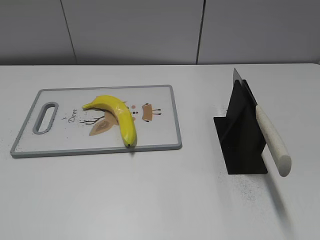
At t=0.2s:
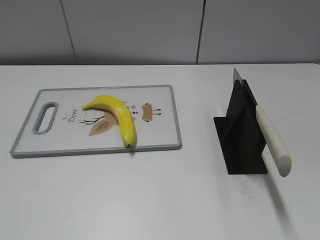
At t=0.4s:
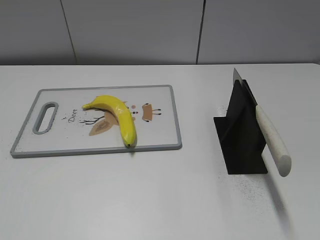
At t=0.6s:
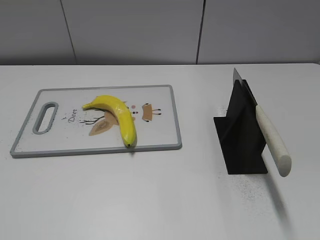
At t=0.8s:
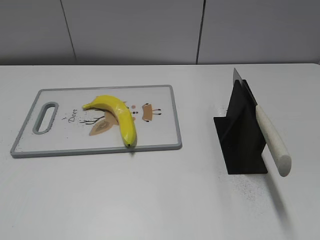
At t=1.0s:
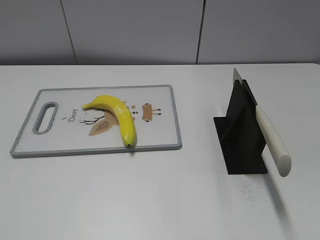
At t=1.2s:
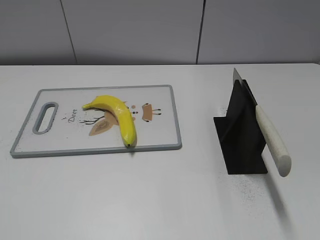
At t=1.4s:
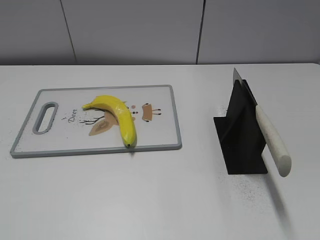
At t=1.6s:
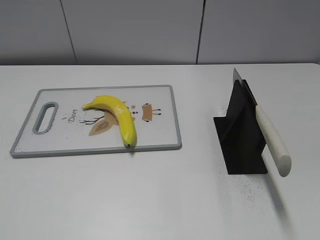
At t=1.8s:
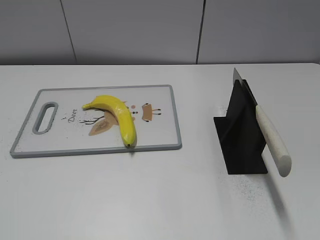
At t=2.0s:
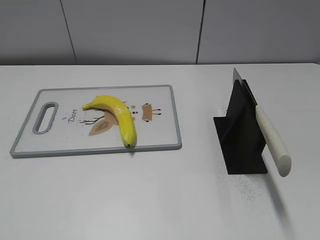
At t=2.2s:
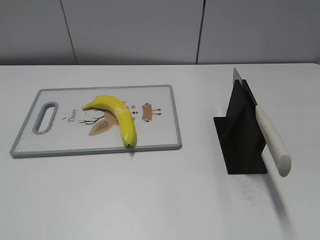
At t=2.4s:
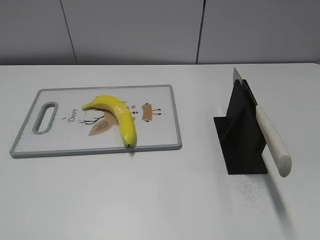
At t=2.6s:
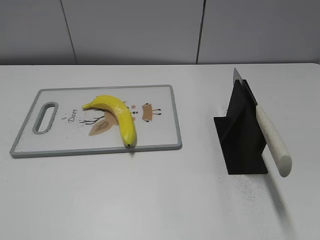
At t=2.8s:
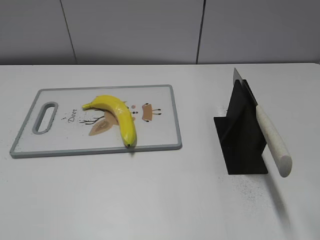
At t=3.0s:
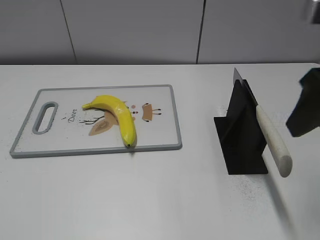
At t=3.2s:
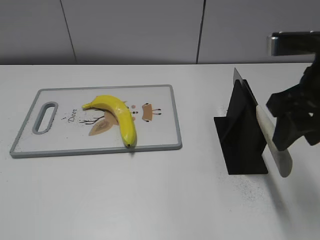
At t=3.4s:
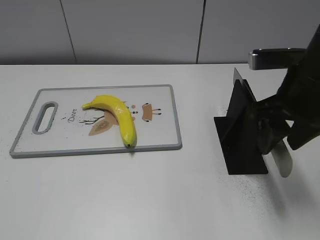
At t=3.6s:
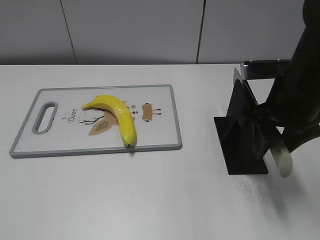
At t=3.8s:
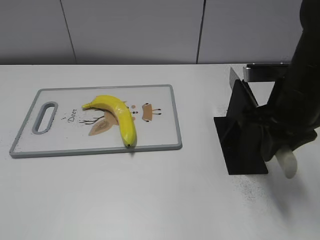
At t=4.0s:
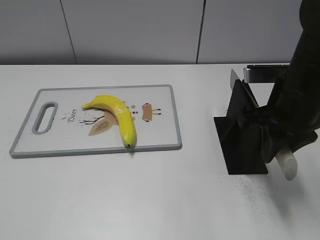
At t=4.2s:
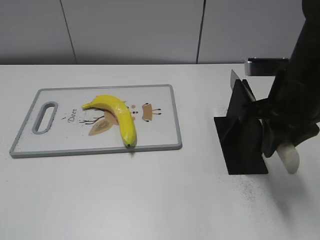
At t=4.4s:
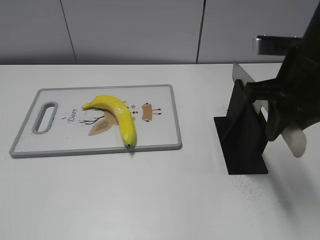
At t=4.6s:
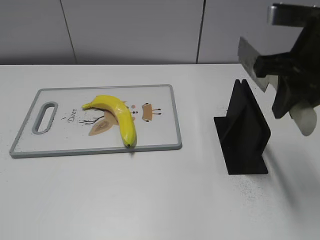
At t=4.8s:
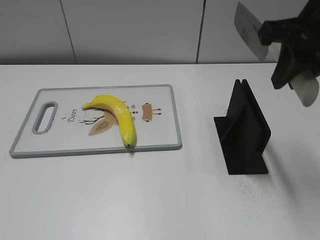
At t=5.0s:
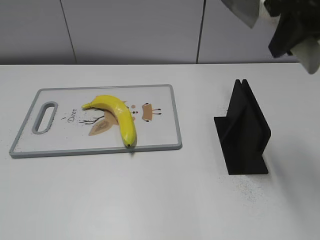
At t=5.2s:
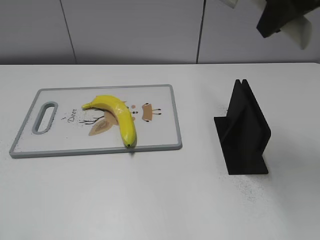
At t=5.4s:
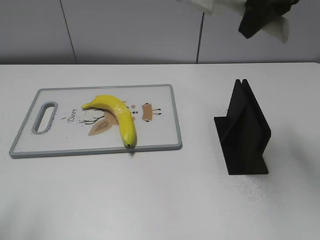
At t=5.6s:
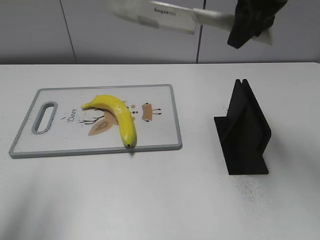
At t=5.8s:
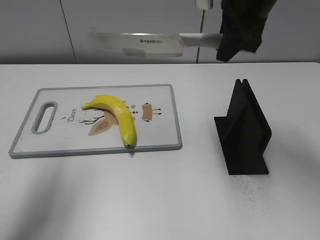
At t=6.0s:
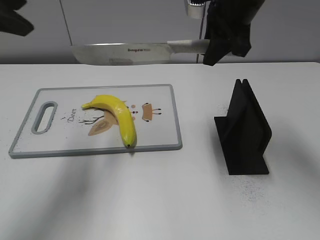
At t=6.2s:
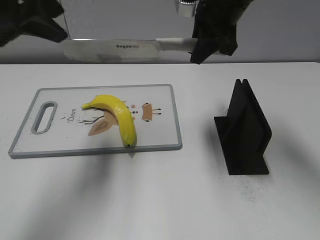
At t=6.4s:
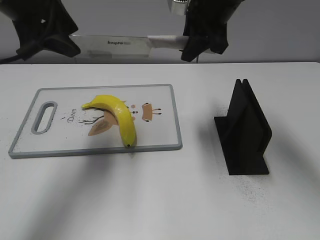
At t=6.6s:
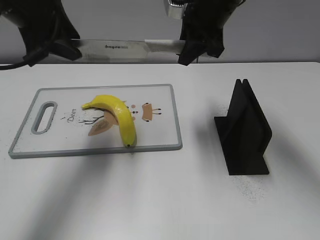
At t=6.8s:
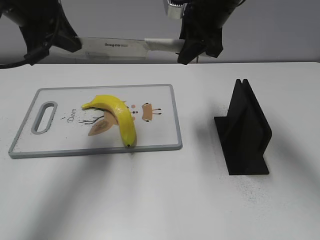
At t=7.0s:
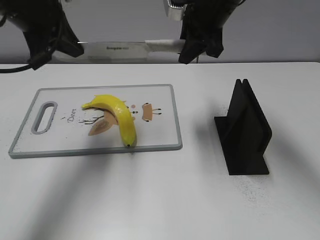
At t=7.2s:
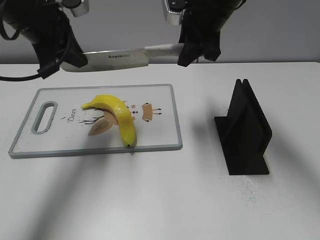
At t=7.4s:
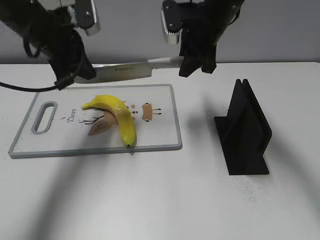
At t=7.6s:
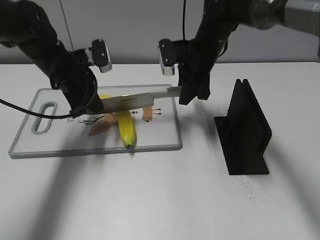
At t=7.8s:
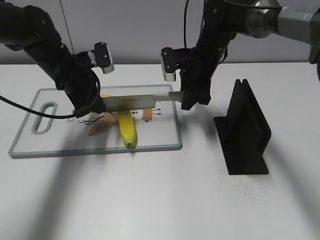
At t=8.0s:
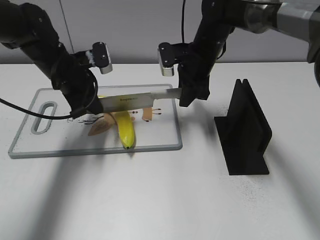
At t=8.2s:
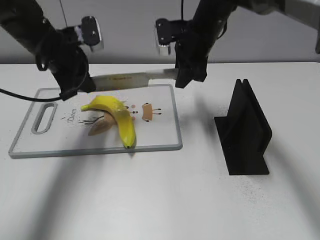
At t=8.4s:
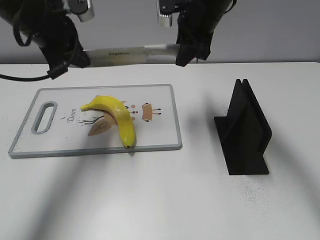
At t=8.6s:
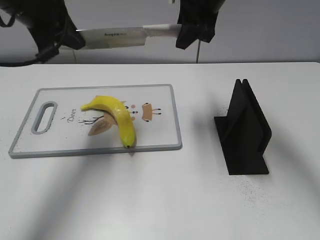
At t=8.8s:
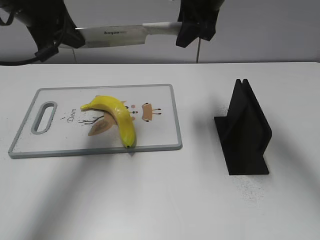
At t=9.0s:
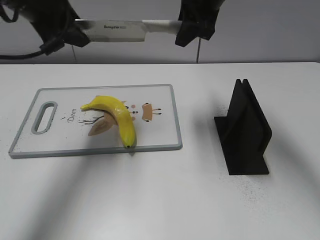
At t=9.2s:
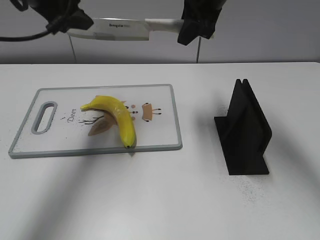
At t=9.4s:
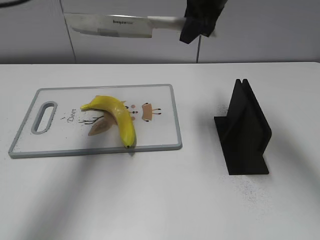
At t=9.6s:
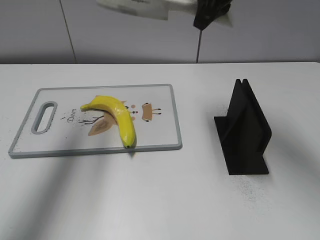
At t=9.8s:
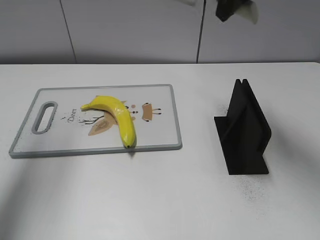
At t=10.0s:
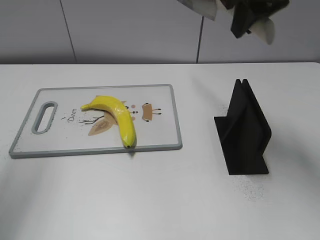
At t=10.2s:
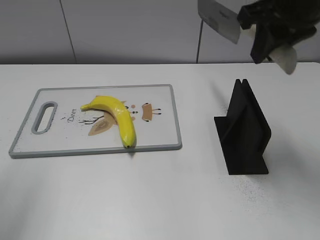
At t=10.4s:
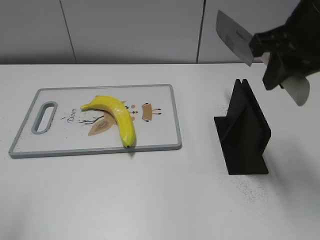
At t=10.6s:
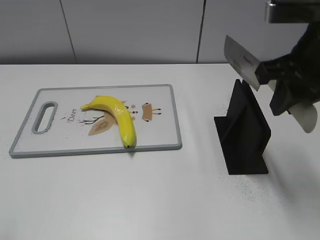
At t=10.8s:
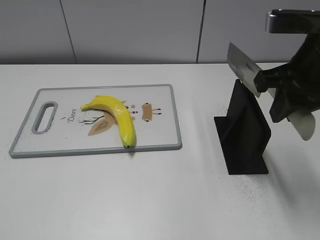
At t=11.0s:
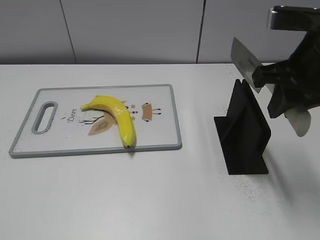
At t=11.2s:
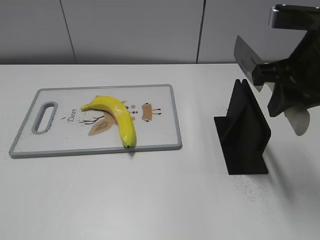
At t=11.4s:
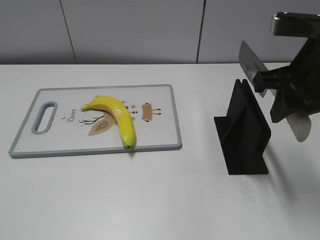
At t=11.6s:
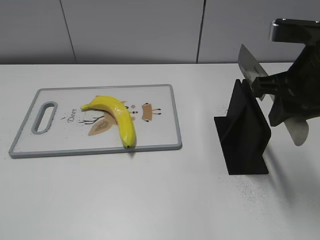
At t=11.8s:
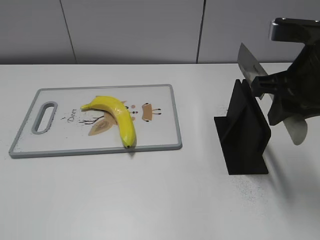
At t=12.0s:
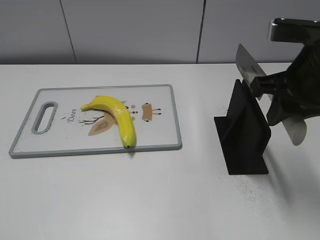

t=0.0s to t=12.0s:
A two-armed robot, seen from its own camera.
Task of the whole recording: cut plastic banana.
Step, t=0.0s to t=4.8s: Grab the knife handle with your right hand.
Step, t=5.0s to t=8.4s: Lift the knife with your right hand.
Step, t=8.8s to t=9.8s: Cut the banana with your right hand.
Step, t=10.0s to t=10.8s: Secure the blade with your left hand.
t=1.6s to t=3.0s: The right gripper goes about 20 cm forward.
t=3.0s to t=4.4s: The right gripper heads forward, covering about 5 cm, and closes up.
t=4.4s to t=6.0s: The right gripper heads forward and to the left, covering about 15 cm. Meanwhile the left gripper travels forward by some 30 cm.
t=6.0s to t=7.6s: The right gripper travels downward and forward by some 15 cm; the left gripper shifts roughly 25 cm downward and forward, and closes up.
t=7.6s to t=9.0s: The grippers both shift upward by about 15 cm. The left gripper opens.
t=9.0s to t=10.4s: The left gripper moves backward and to the left, about 25 cm. The right gripper moves backward and to the right, some 20 cm.
t=10.4s to t=12.0s: The right gripper ends up about 5 cm from where it was.

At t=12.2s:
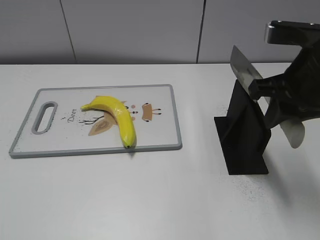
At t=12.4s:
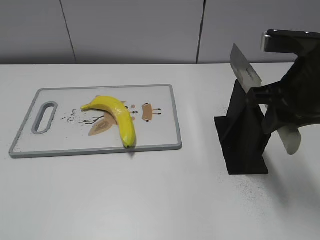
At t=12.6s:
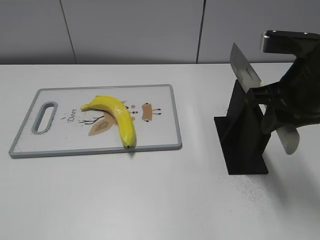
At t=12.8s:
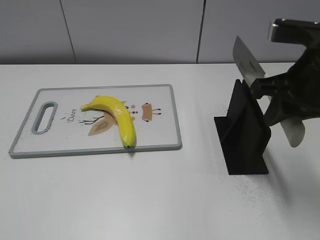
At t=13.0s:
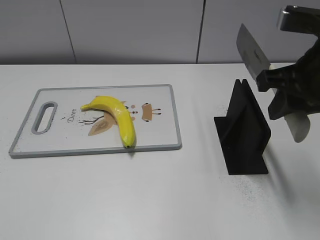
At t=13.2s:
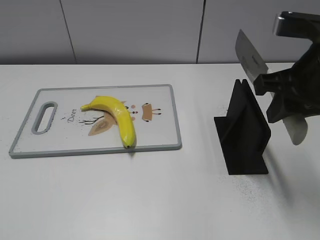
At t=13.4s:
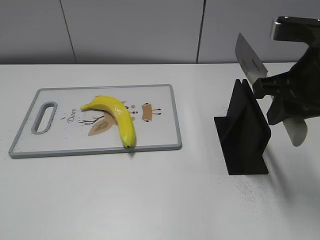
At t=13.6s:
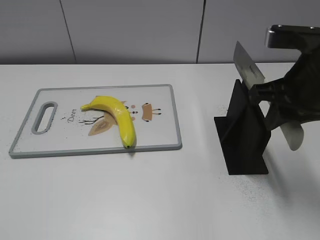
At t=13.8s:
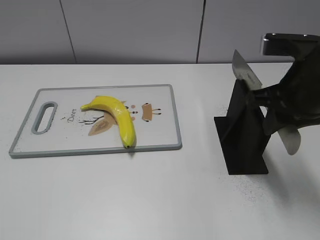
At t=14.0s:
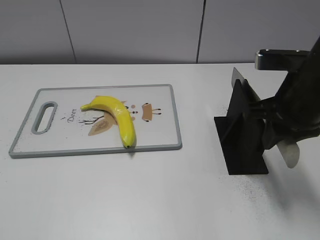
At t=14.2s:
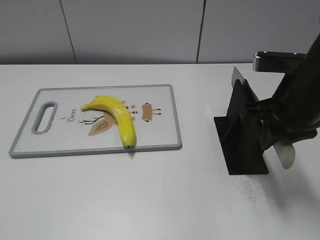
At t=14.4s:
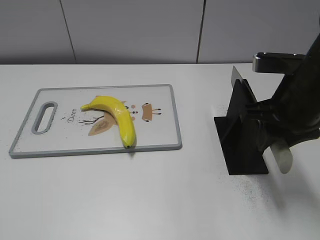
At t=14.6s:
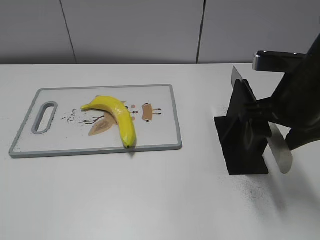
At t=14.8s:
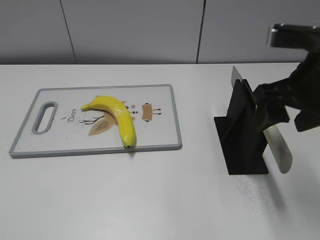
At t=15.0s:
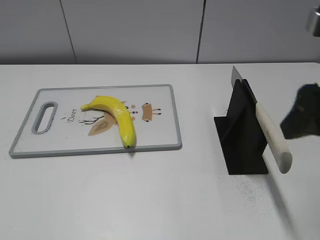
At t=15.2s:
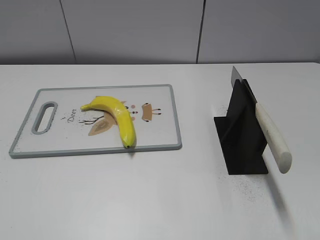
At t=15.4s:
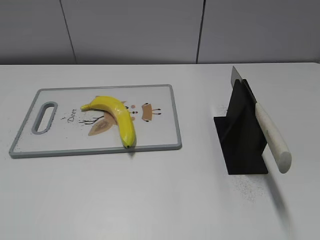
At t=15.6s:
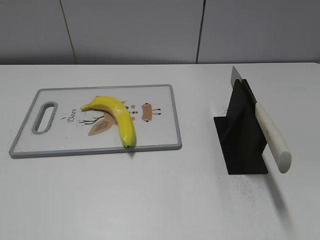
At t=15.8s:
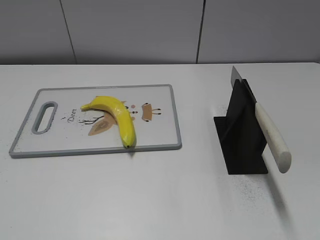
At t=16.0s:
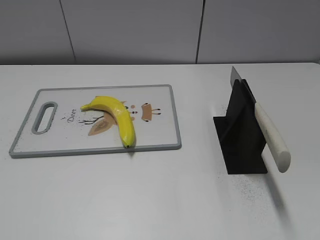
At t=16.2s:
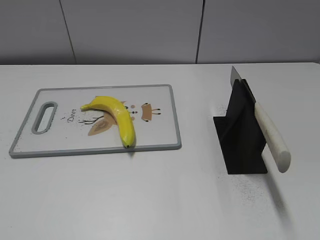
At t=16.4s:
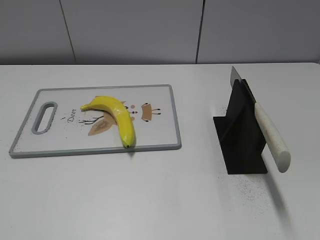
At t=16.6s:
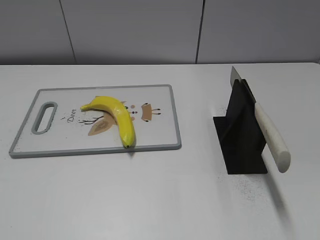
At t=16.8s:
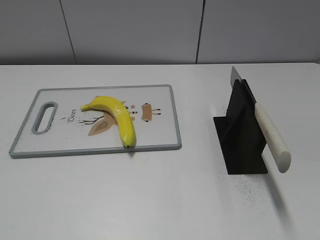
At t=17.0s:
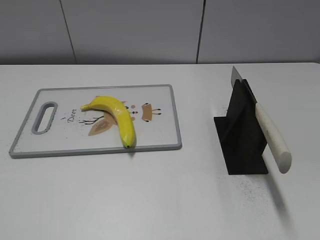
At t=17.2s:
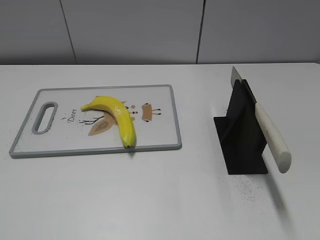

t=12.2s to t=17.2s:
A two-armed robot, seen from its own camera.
Task of the whole recording: cut plastic banana.
Step, t=12.2s to t=17.2s: Place the knife on the storage rack with your right hand.
t=12.2s to t=13.8s: The grippers make only small movements.
t=13.8s to t=15.6s: The right gripper heads backward and to the right, covering roughly 25 cm, and opens its fingers.
